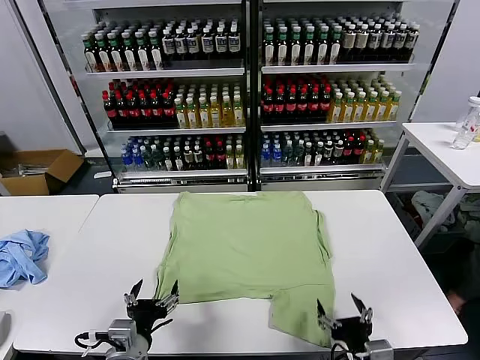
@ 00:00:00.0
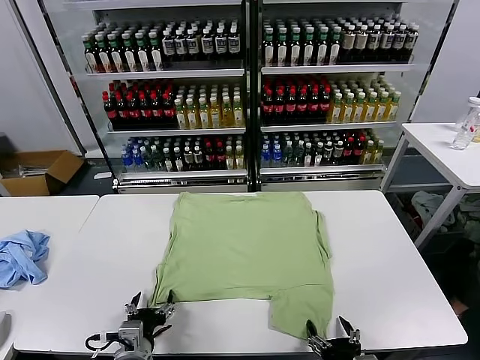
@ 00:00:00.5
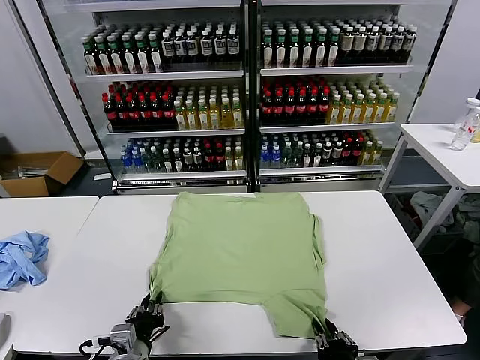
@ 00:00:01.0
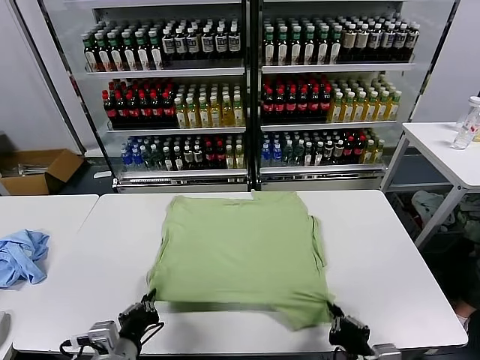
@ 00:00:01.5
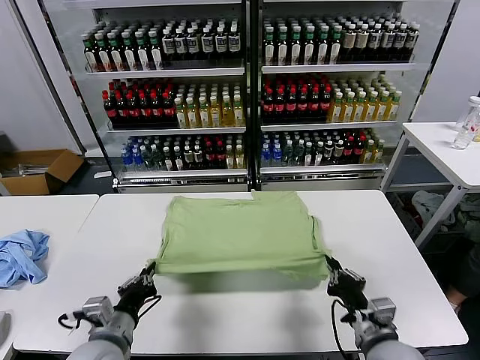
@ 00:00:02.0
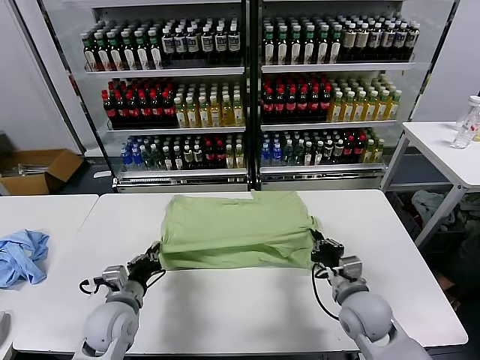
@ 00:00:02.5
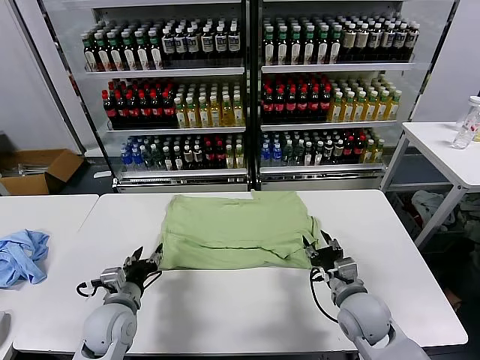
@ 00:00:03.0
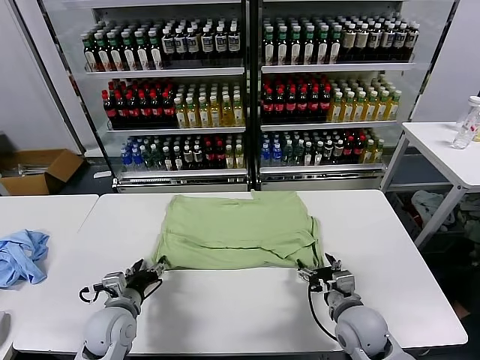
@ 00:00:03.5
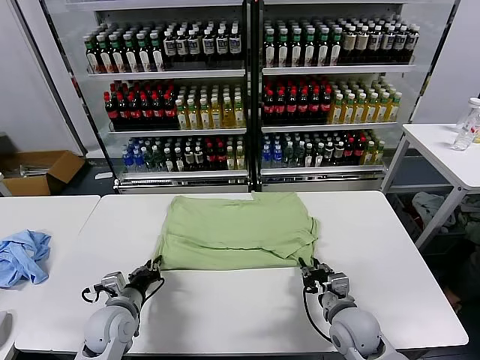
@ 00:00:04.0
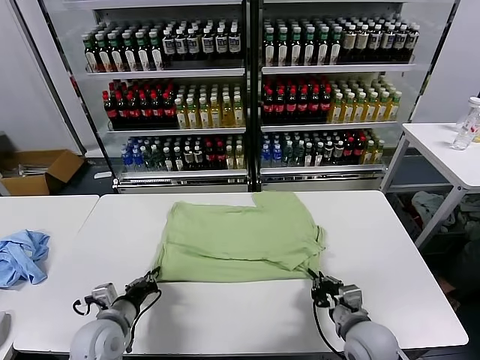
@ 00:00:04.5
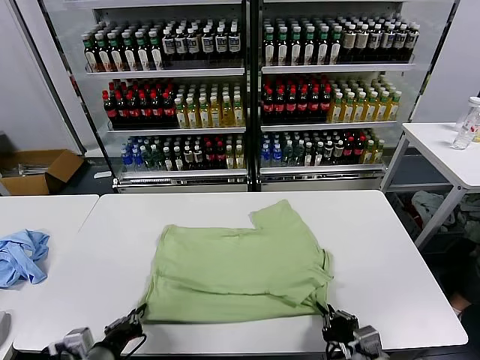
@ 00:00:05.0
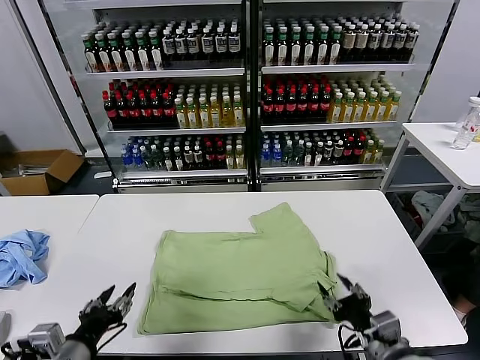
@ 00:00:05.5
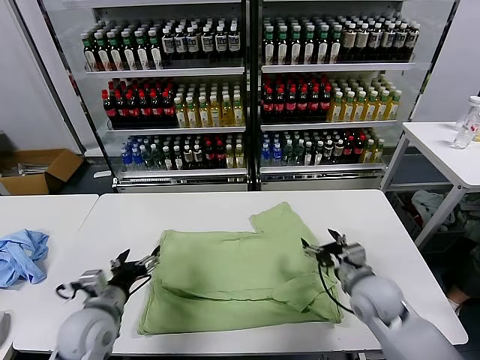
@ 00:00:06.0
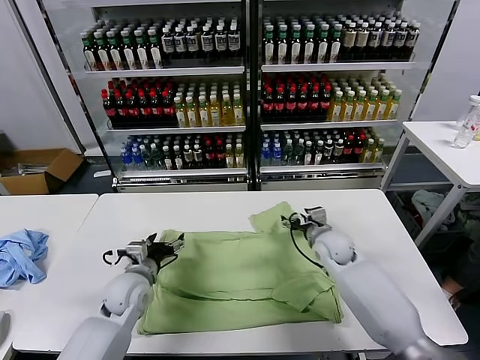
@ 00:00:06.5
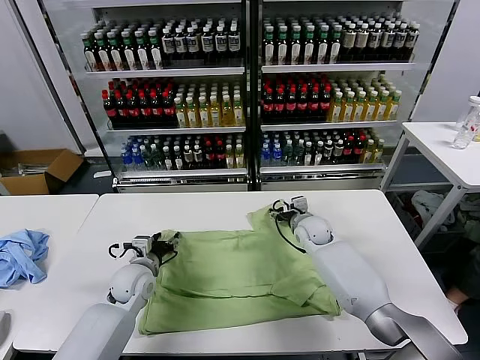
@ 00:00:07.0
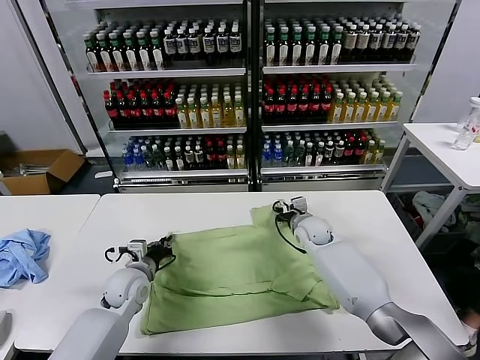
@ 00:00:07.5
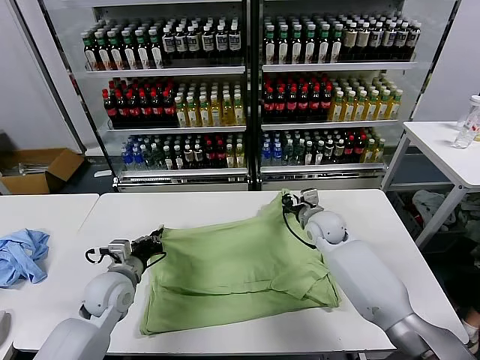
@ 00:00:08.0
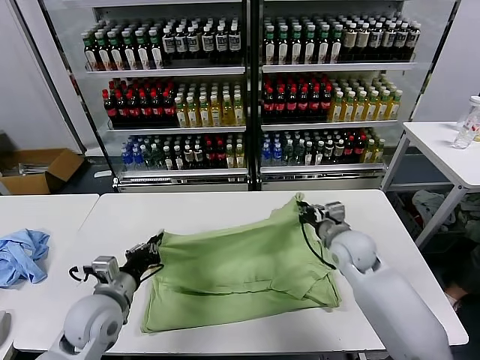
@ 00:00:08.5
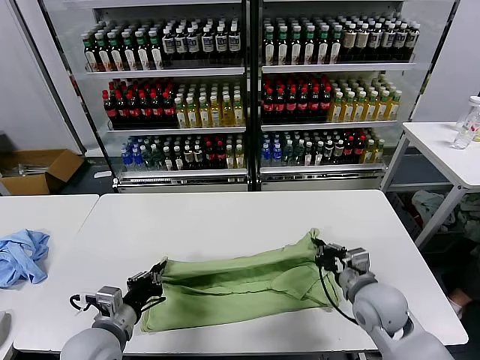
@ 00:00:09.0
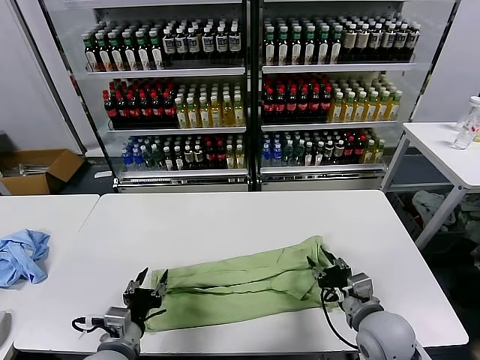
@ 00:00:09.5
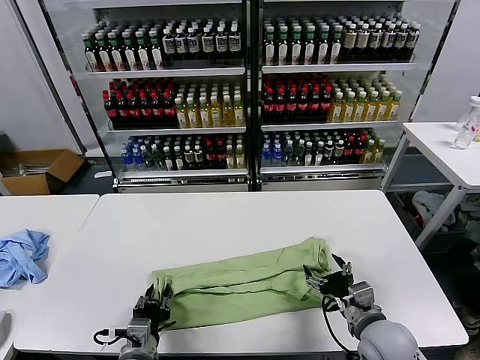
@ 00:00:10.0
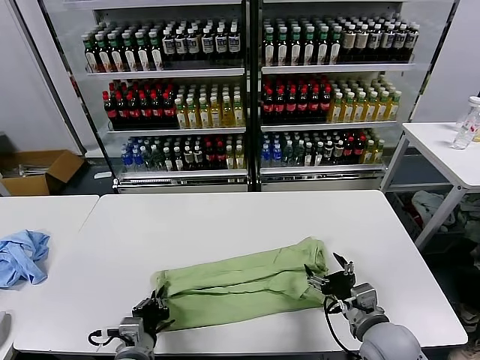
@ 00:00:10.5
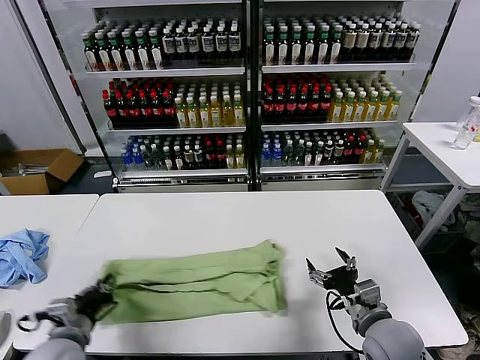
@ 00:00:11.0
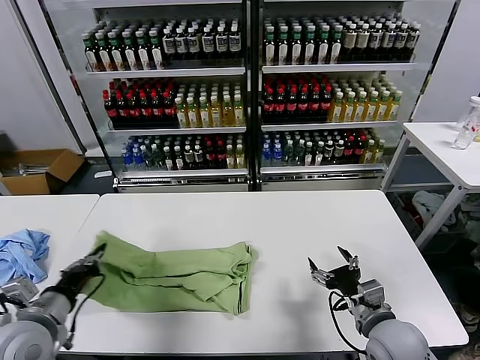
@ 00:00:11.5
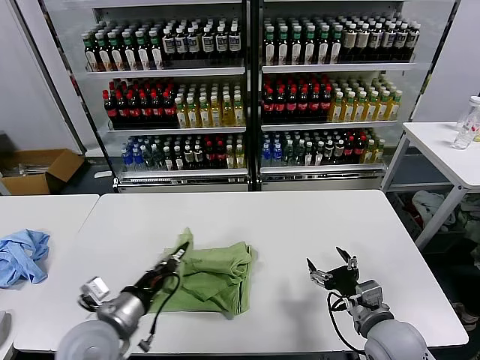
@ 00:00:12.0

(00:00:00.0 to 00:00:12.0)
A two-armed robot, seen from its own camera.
Task of the whole recording: fold and organize the clothes.
Step, 00:00:00.0 - 00:00:01.0: use both grippers simultaneously to clamp the lower edge of the clothing fabric.
Step, 00:00:01.5 - 00:00:02.5: use both grippers to drag the lower edge of the fabric forward and fold it over the upper edge.
Step, 00:00:03.0 - 00:00:05.0: Drag the clothes downward with both gripper.
Step, 00:00:05.5 - 00:00:07.5: use both grippers simultaneously to clamp the upper edge of the clothing fabric.
Step, 00:00:08.0 - 00:00:09.0: use both grippers to drag the upper edge of the fabric backward and fold it over the lower edge.
Step, 00:00:09.5 - 00:00:10.5: use the left gripper to clamp the left edge of the fabric.
00:00:02.0 - 00:00:04.0: The right gripper is displaced downward and forward by about 10 cm, and opens, then closes once more. The left gripper travels forward and downward by roughly 10 cm, and opens, then closes once more.
00:00:04.0 - 00:00:06.0: The left gripper heads upward, covering approximately 5 cm, moves about 15 cm backward and comes back, and opens its fingers; the right gripper travels forward and upward by about 10 cm, and opens up.
00:00:06.0 - 00:00:08.0: The left gripper travels forward by roughly 10 cm, and closes its fingers. The right gripper travels forward by approximately 15 cm, and closes.
00:00:08.0 - 00:00:10.0: The right gripper shifts approximately 25 cm backward, and opens its fingers. Meanwhile the left gripper travels backward and to the right by roughly 20 cm, and opens its fingers.
00:00:10.0 - 00:00:12.0: The left gripper heads upward, covering some 10 cm, travels to the left and back again, approximately 15 cm each way, and closes its fingers.

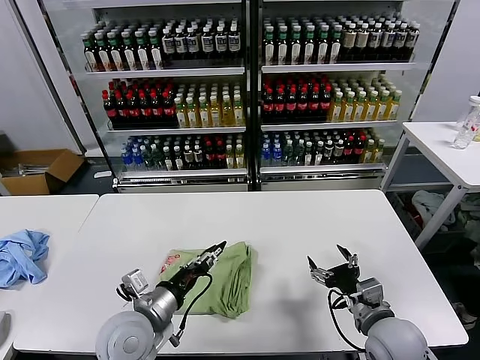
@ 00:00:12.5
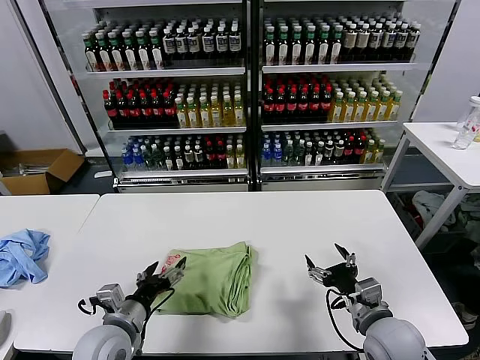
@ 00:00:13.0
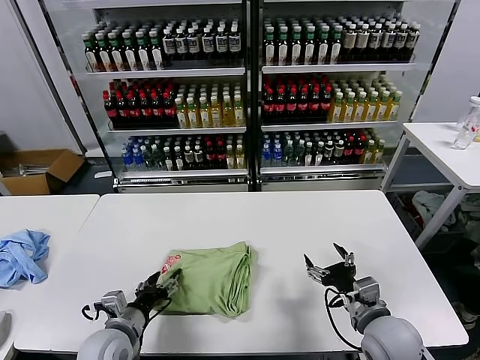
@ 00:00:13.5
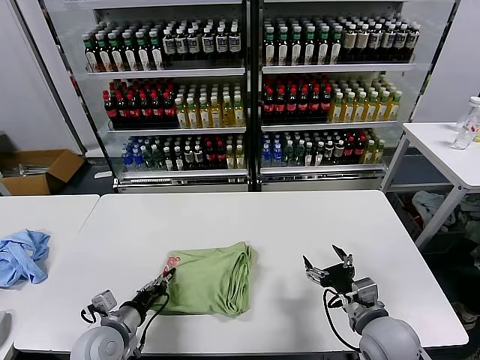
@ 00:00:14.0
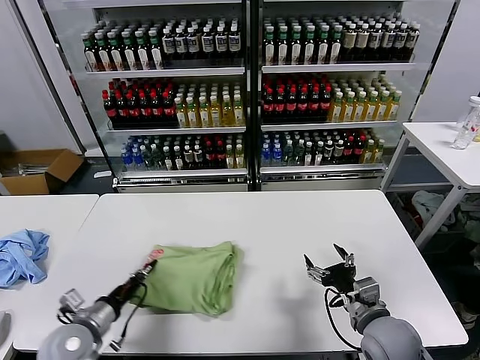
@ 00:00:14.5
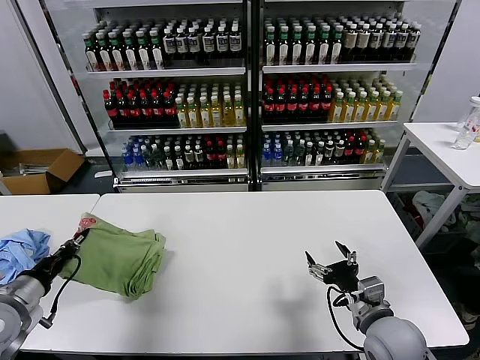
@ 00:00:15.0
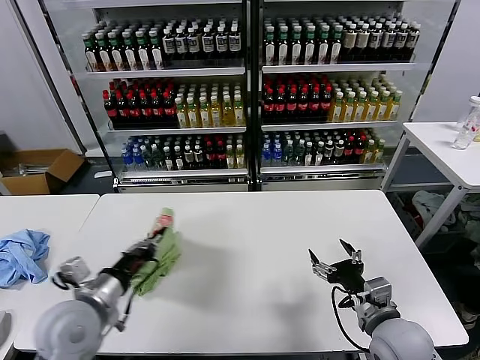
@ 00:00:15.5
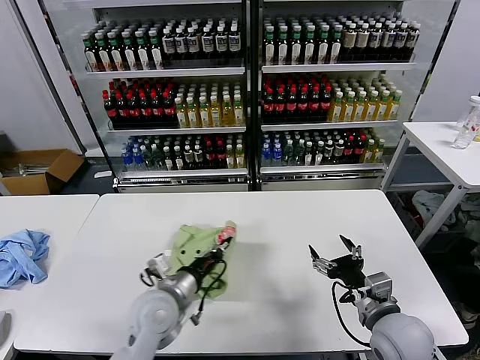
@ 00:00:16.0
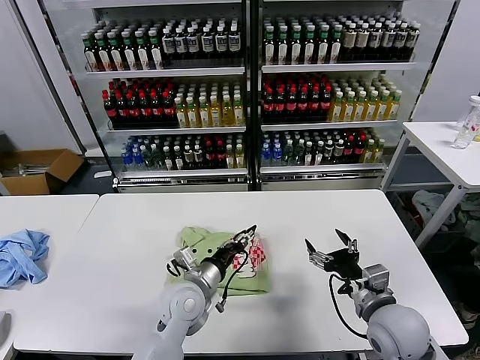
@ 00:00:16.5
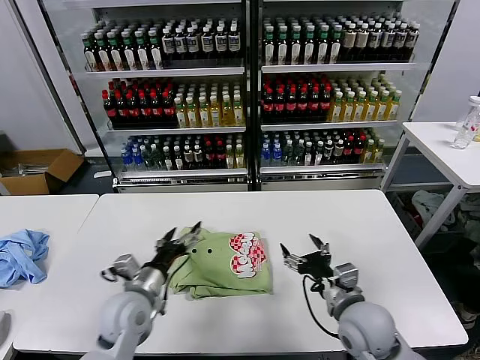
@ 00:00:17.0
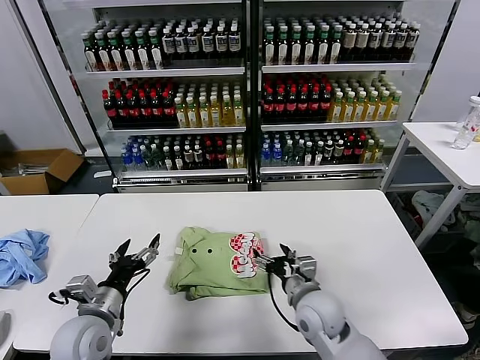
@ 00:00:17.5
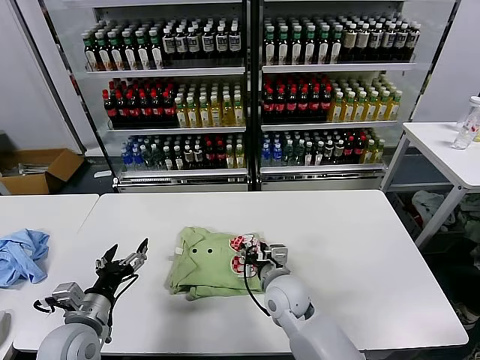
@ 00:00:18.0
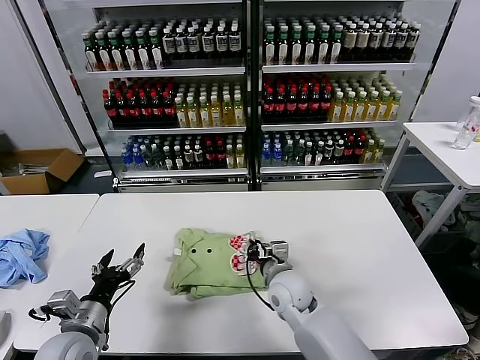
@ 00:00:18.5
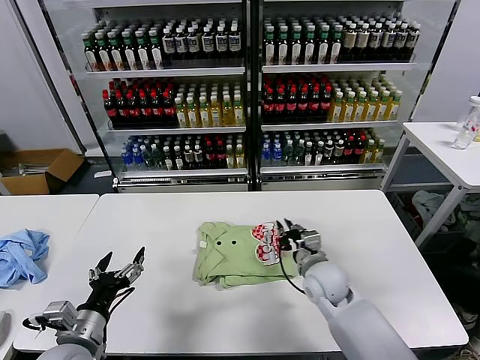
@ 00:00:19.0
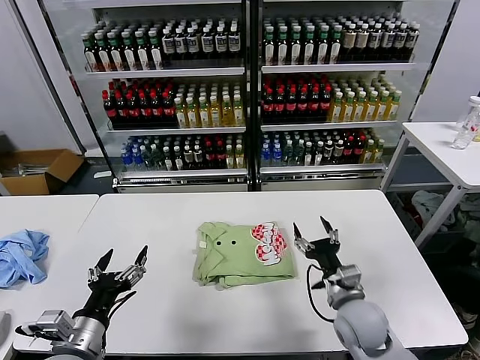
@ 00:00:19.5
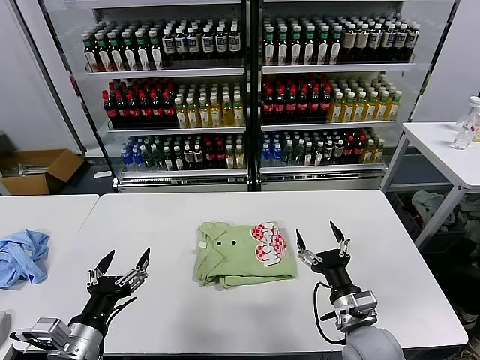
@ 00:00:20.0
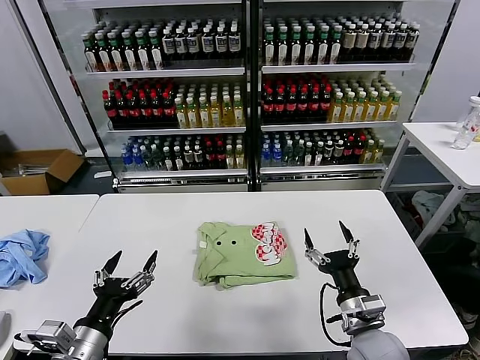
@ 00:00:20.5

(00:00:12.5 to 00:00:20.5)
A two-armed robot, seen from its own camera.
Task of the whole recording: fold and organize the clothes.
Step, 00:00:13.0 - 00:00:16.5: Flip the folded clothes over with left gripper.
Step, 00:00:17.0 - 00:00:19.0: Drag the clothes to the center of the table.
00:00:12.5 - 00:00:14.5: The left gripper is displaced to the left and downward by about 15 cm, and closes.
00:00:14.5 - 00:00:16.5: The left gripper heads to the right, covering approximately 20 cm, and opens its fingers.
00:00:16.5 - 00:00:18.5: The right gripper heads to the left and forward, covering approximately 20 cm, and closes, while the left gripper travels to the left and backward by roughly 20 cm, and opens.
00:00:18.5 - 00:00:20.5: The left gripper heads backward, covering some 5 cm; the right gripper moves to the right and backward, approximately 20 cm, and opens.
